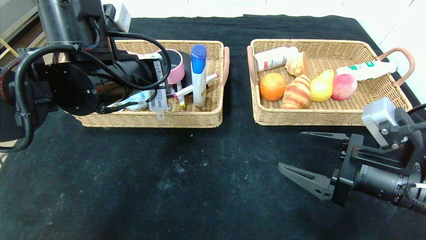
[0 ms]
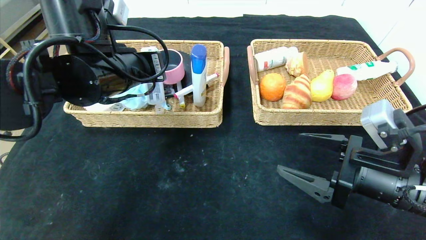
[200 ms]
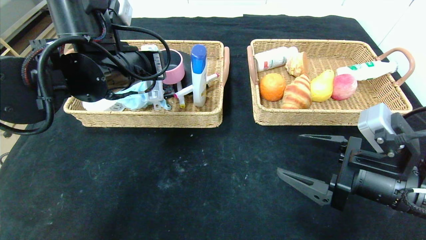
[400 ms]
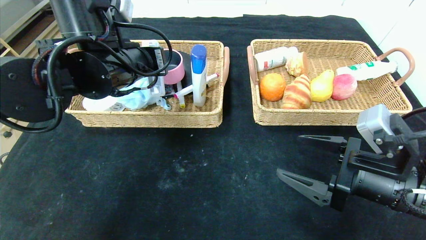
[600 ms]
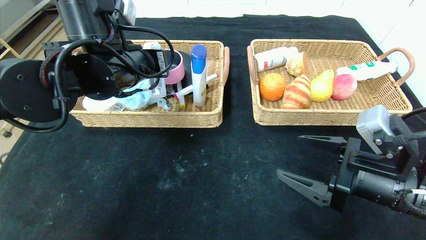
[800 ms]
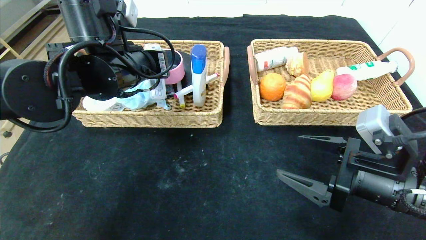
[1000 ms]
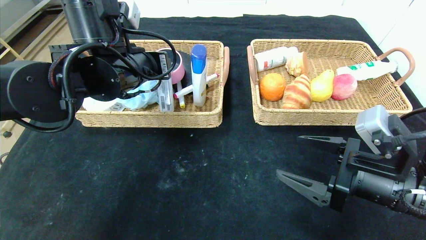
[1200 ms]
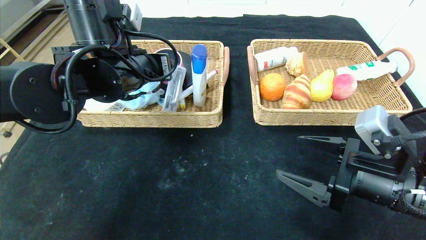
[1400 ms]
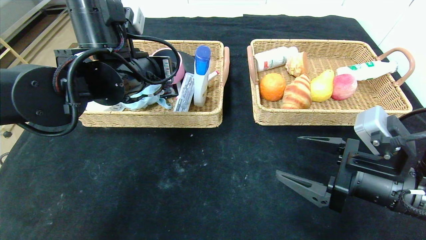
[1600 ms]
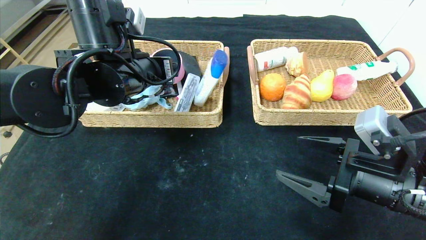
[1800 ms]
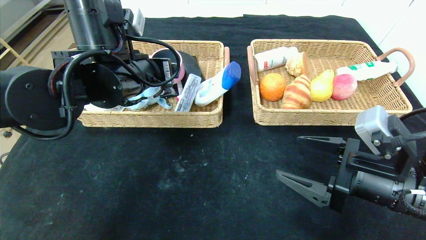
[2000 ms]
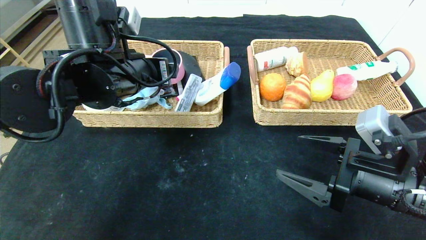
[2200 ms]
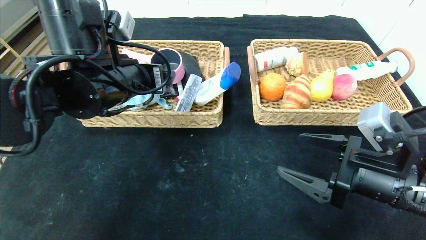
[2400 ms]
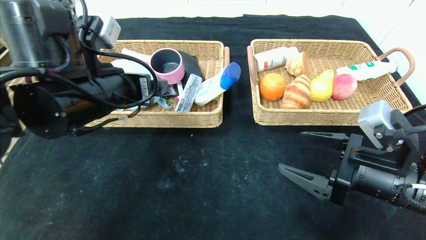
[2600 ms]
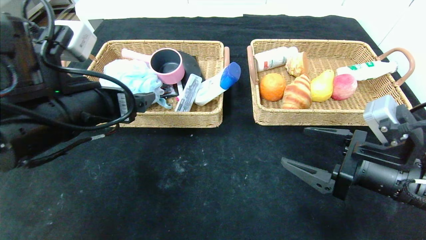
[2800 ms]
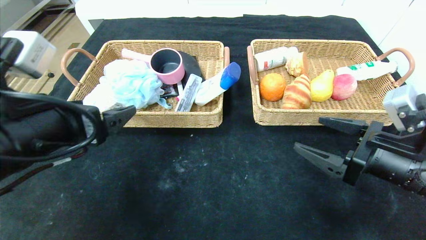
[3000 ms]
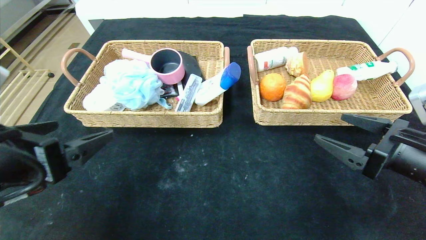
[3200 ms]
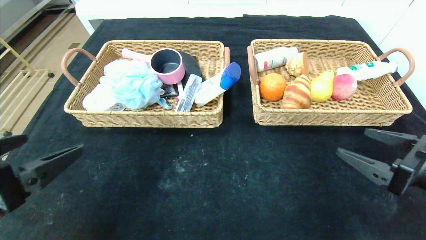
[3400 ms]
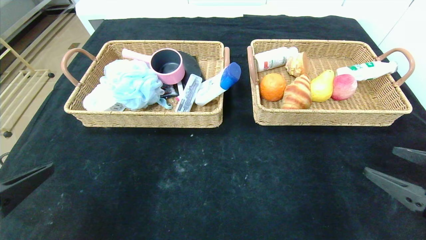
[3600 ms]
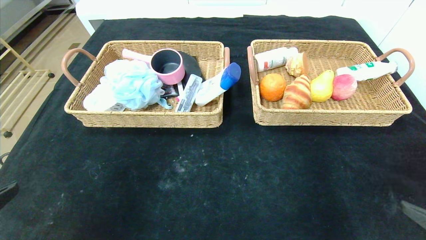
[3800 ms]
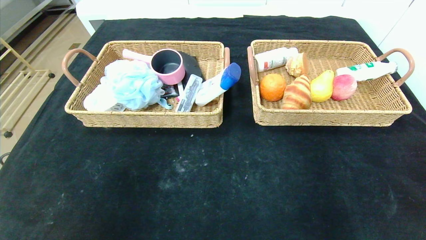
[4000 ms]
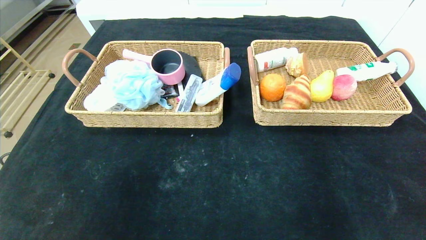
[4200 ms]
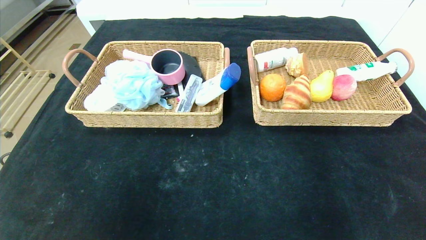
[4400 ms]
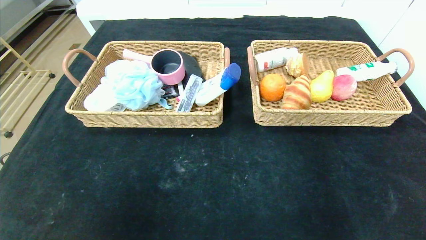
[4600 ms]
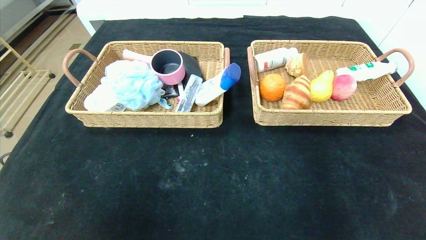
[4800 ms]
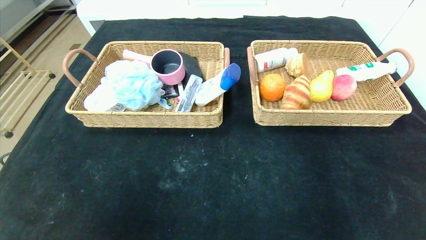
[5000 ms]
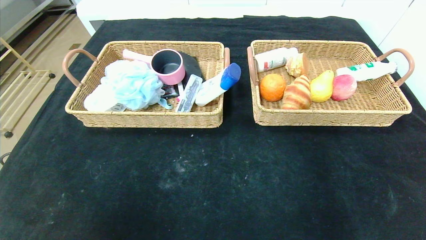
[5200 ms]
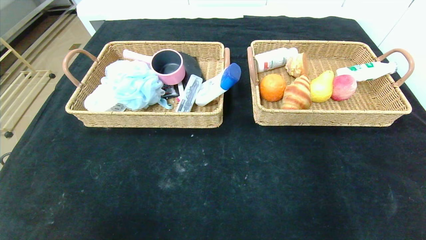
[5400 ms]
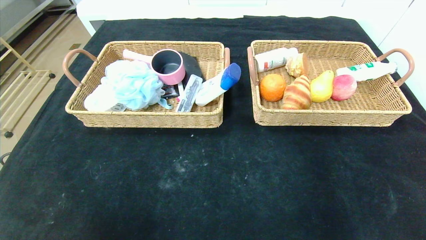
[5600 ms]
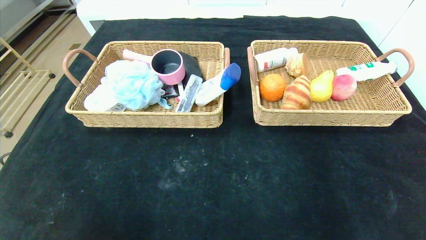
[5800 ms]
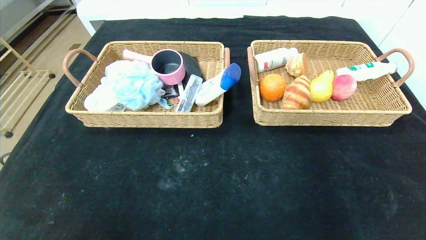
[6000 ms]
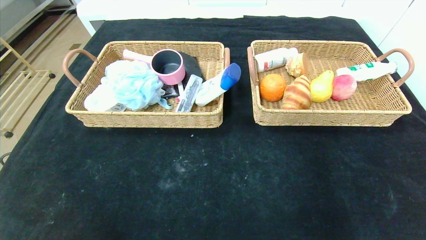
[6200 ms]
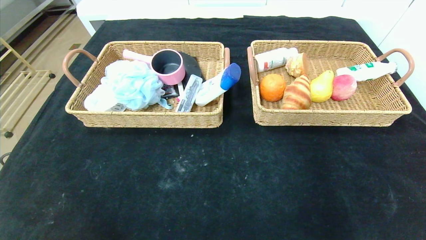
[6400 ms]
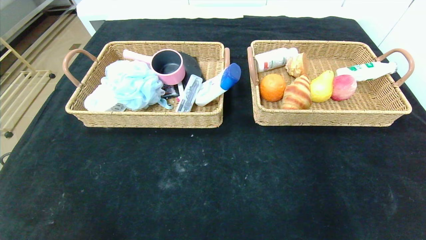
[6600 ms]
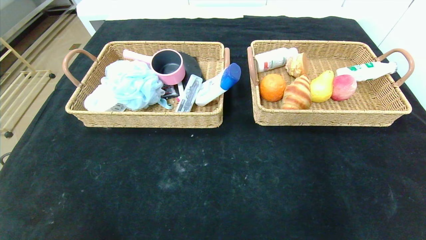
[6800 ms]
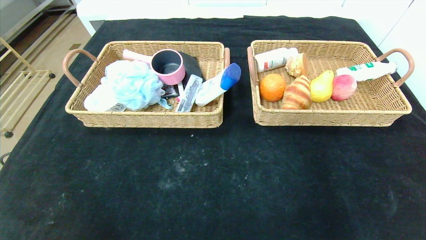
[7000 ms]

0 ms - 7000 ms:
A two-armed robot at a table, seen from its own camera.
Step, 0 ms - 4600 ms: Pick up the compass and put it in the left basket.
0 ms - 1400 ms: The left gripper opens its fingers.
1400 ms - 2800 ms: The left gripper moves backward, some 10 cm.
2800 ms - 4200 ms: The left gripper is displaced backward by some 25 cm. The right gripper moves backward and to the right, about 25 cm.
